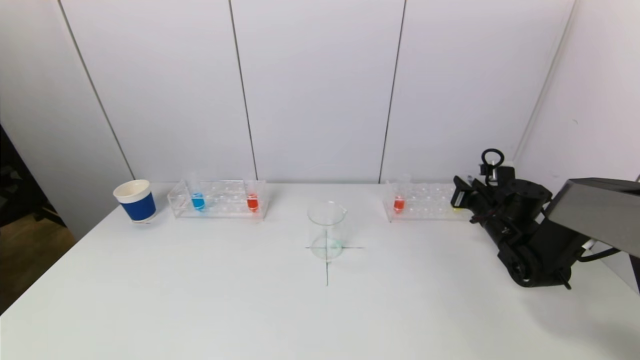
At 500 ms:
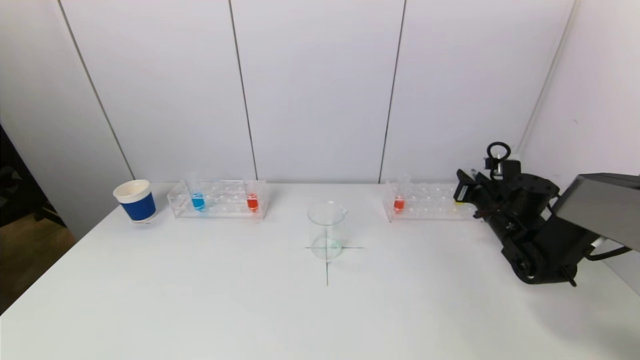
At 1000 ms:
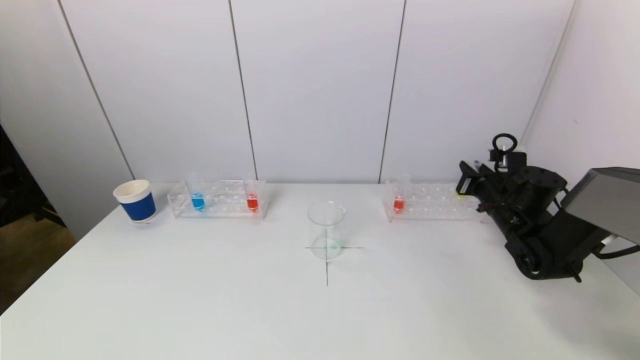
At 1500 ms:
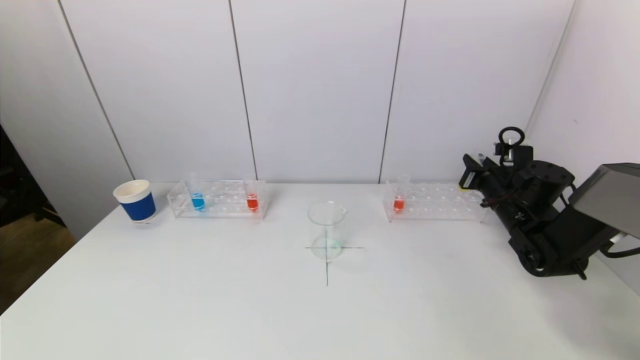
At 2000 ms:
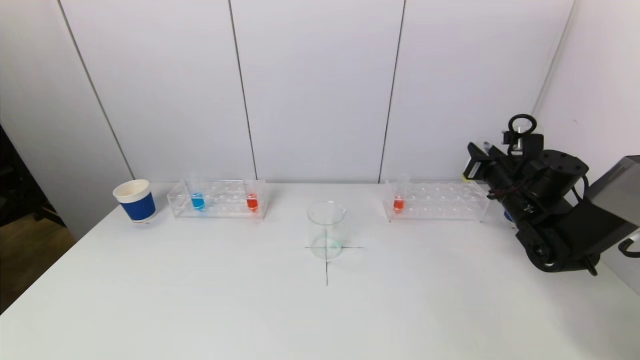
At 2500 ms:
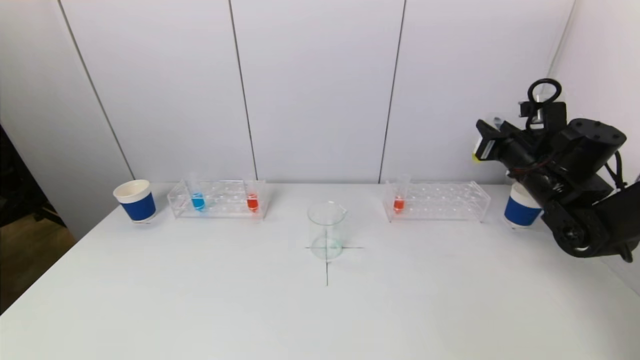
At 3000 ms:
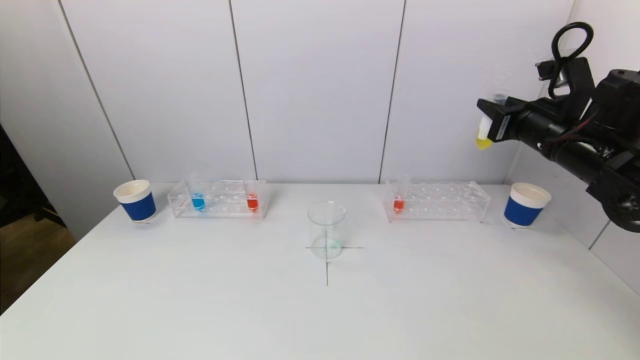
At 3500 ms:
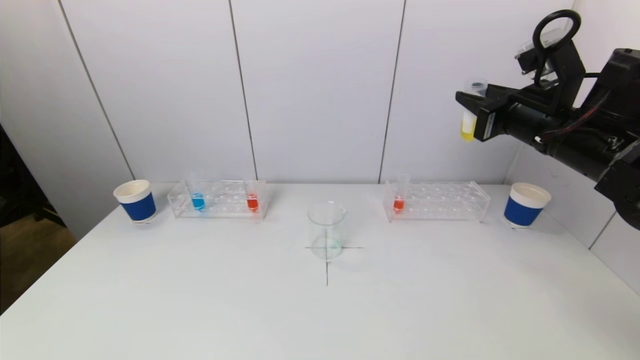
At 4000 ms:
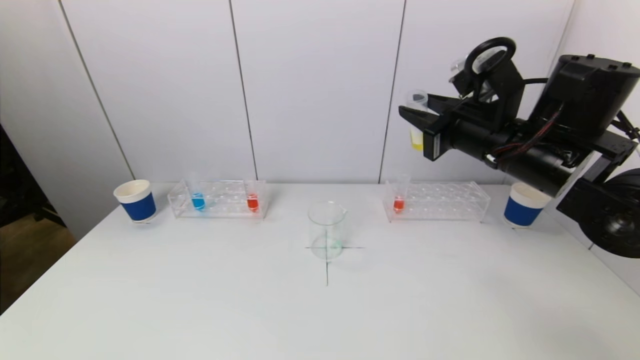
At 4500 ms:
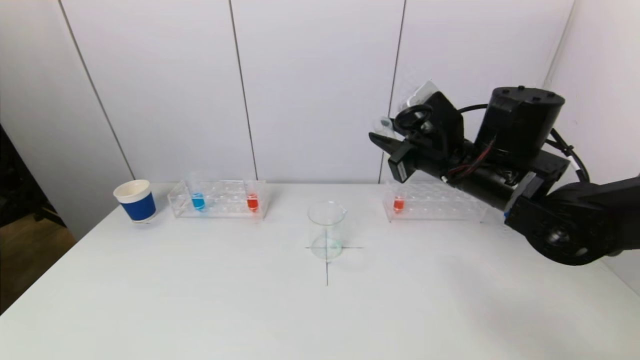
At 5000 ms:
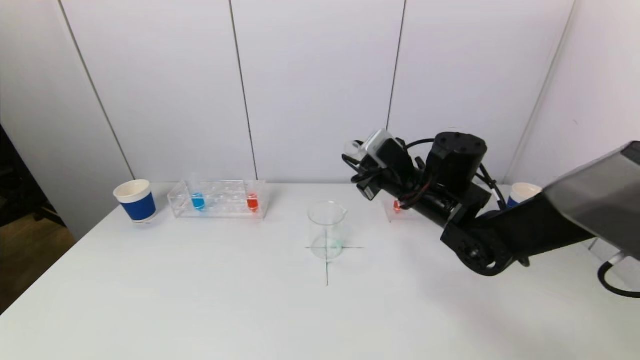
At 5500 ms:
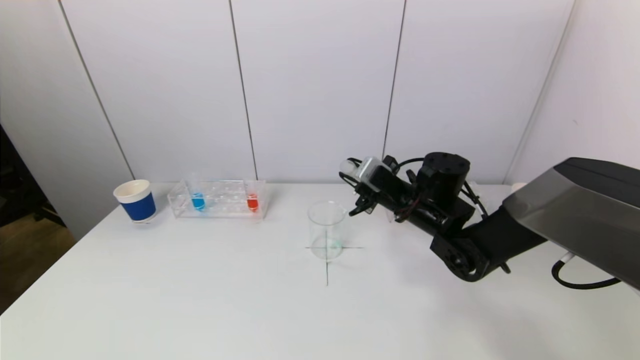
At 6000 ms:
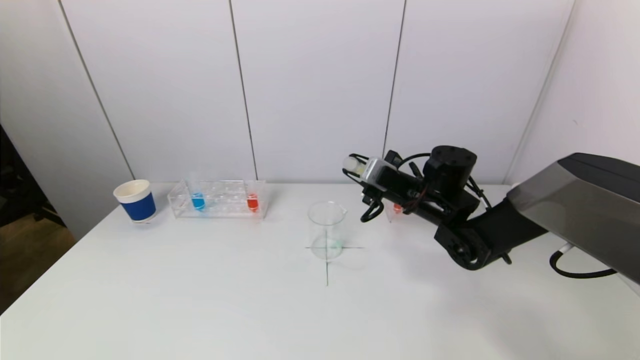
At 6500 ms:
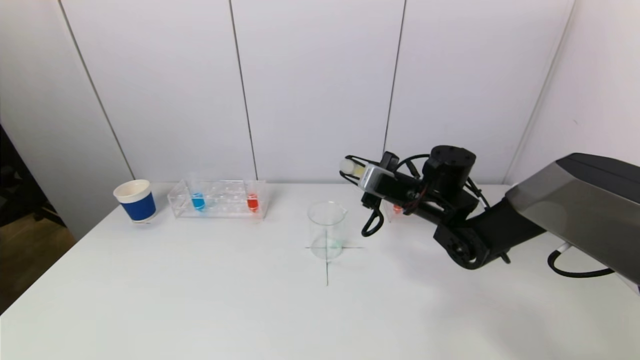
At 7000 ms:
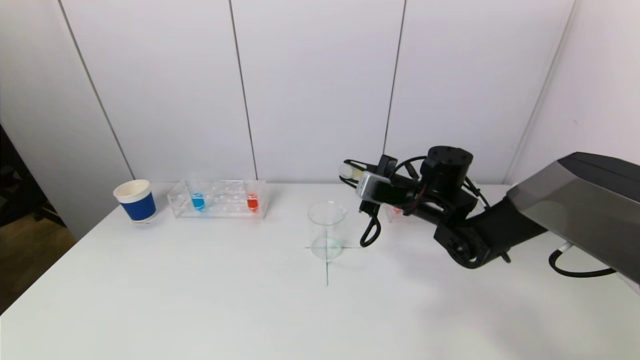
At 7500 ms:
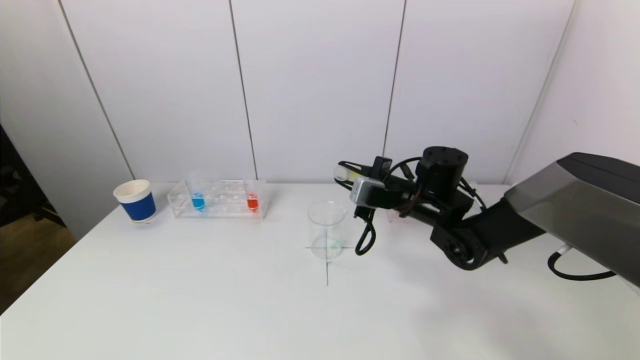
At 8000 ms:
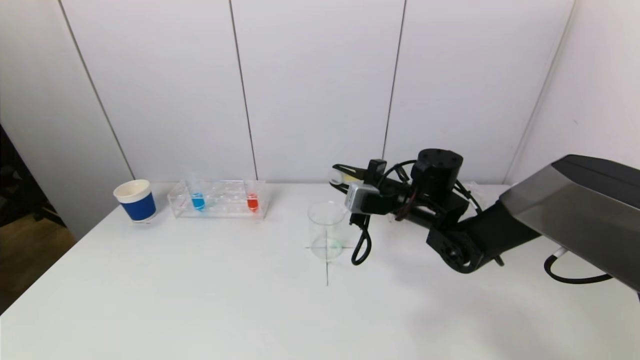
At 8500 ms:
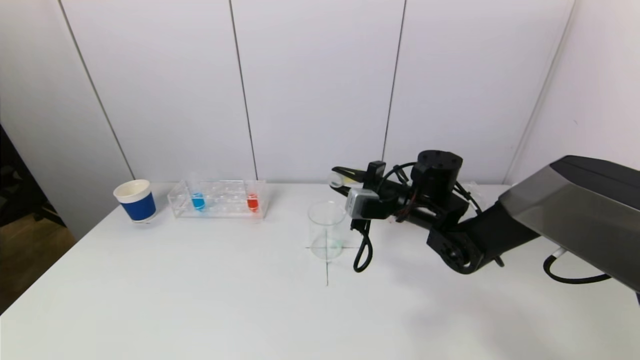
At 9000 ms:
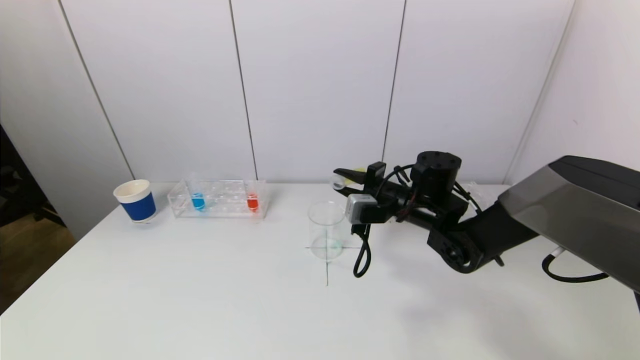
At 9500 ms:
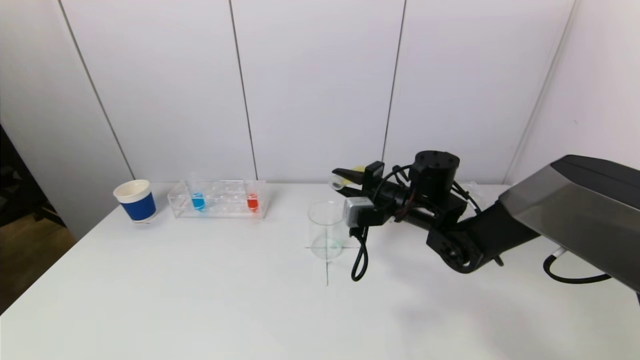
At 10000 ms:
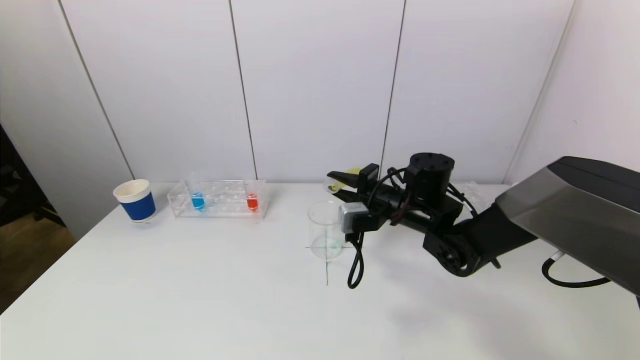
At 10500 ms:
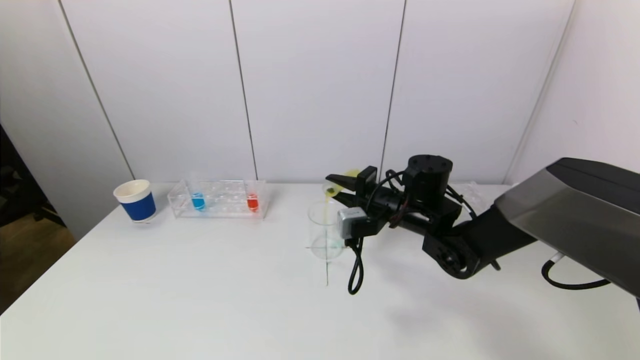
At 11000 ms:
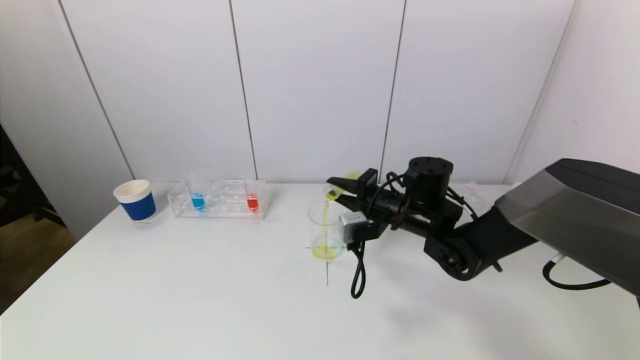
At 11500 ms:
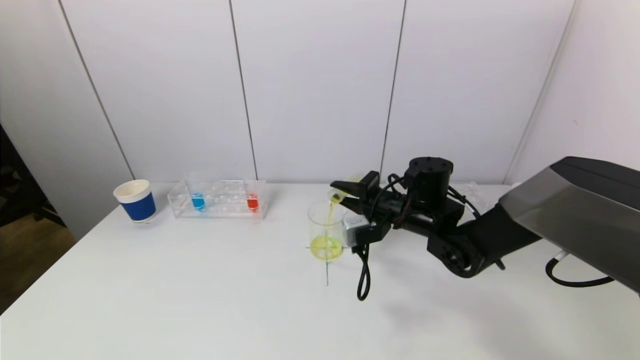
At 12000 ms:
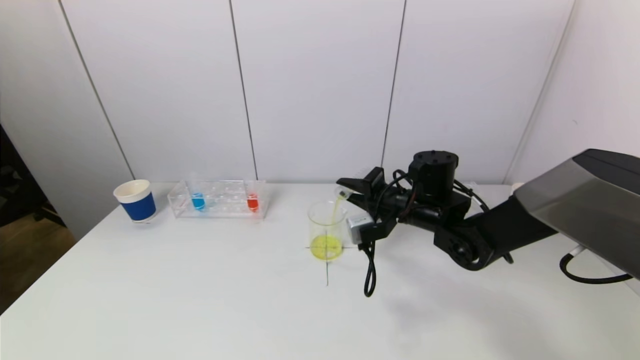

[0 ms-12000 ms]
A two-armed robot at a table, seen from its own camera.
Task of the whole recording: pick up a test tube with pigment on left test tube rack and a test tube with pigment on right test tube rack by grippers and pour them into the beaker.
0 ms to 2000 ms: The right gripper travels upward by some 10 cm.
2000 ms to 4000 ms: The right gripper heads upward, to the left and backward, covering some 20 cm.
4000 ms to 6000 ms: The right gripper is displaced downward and forward by approximately 15 cm.
6000 ms to 8000 ms: The grippers make only small movements.
8000 ms to 10000 ms: There are only small adjustments of the grippers.
10000 ms to 12000 ms: The grippers make only small movements.

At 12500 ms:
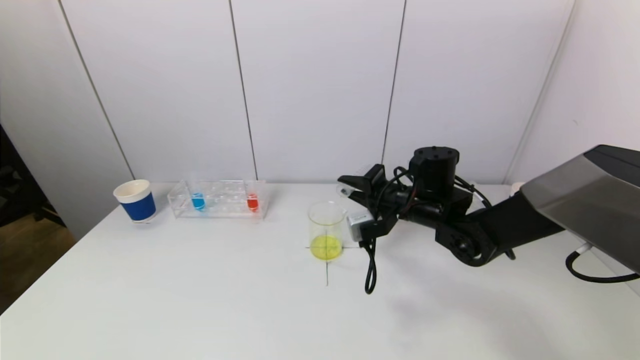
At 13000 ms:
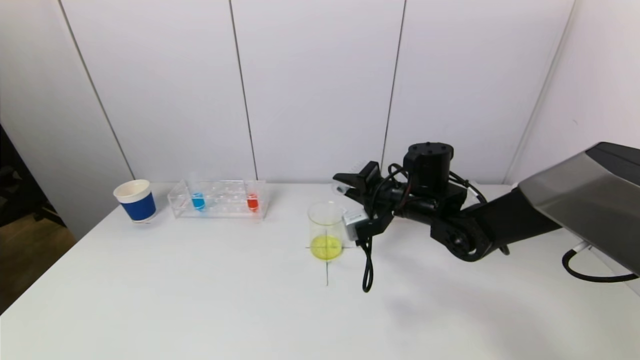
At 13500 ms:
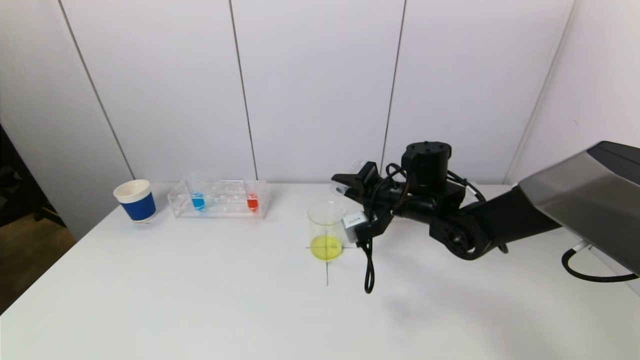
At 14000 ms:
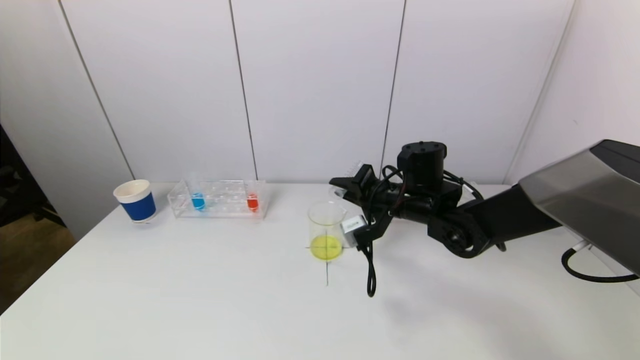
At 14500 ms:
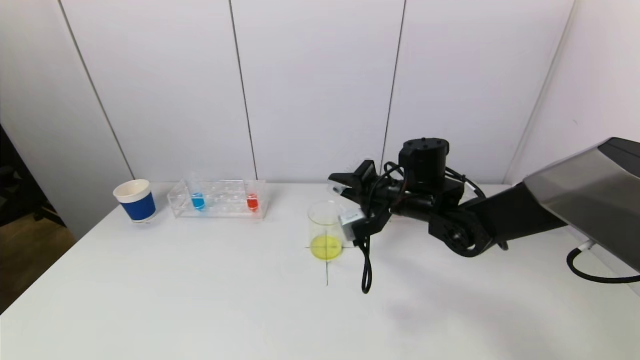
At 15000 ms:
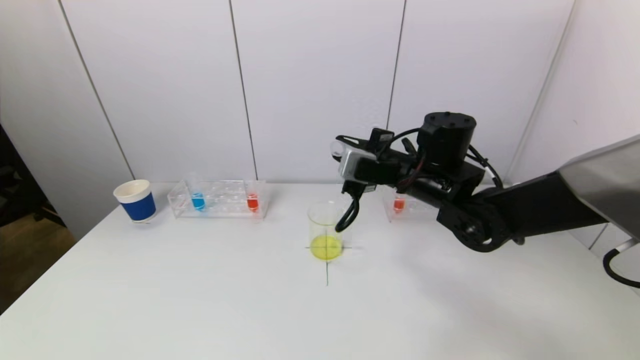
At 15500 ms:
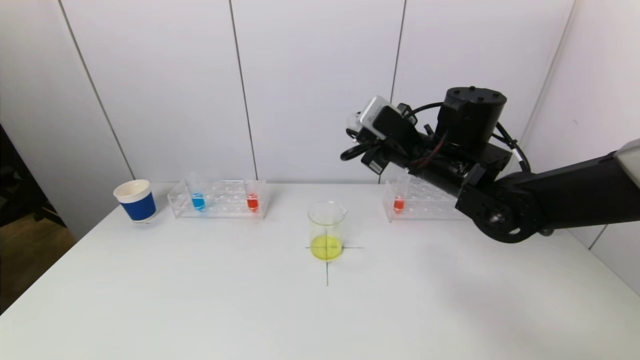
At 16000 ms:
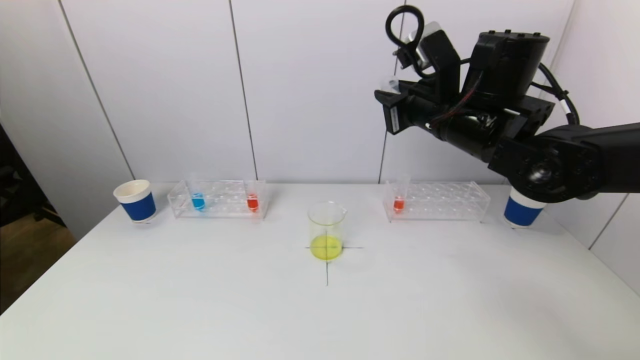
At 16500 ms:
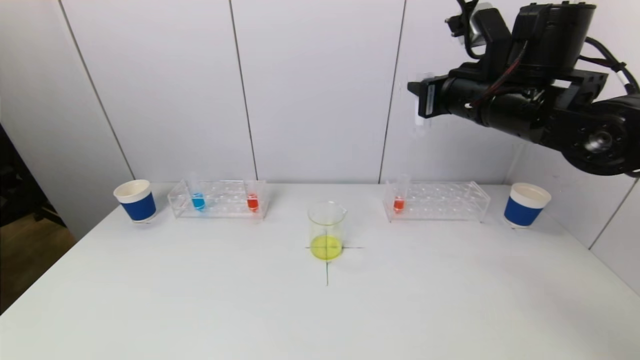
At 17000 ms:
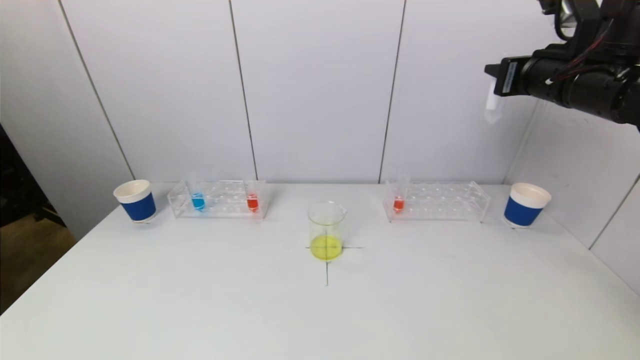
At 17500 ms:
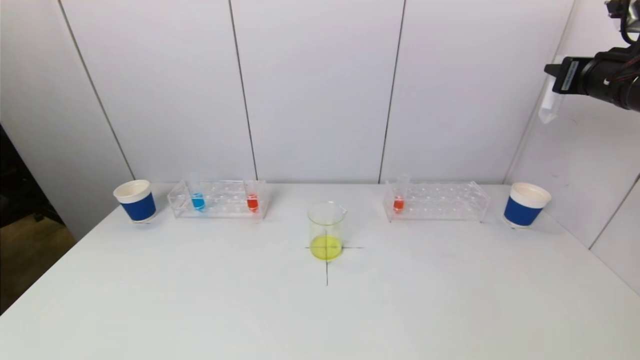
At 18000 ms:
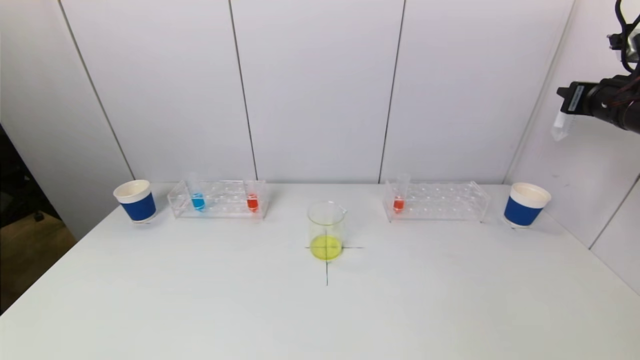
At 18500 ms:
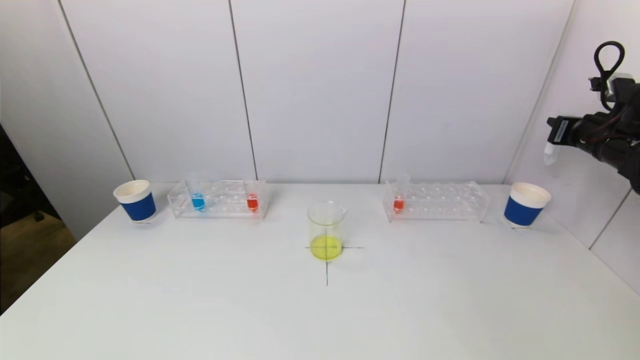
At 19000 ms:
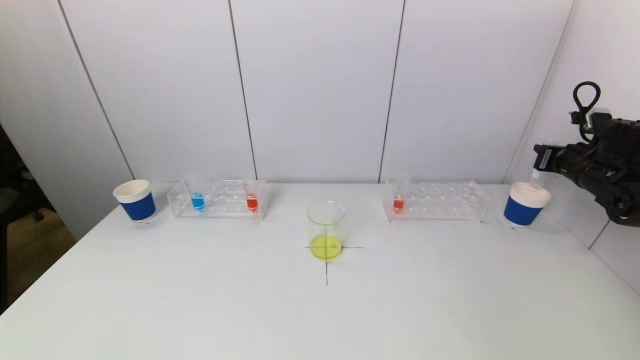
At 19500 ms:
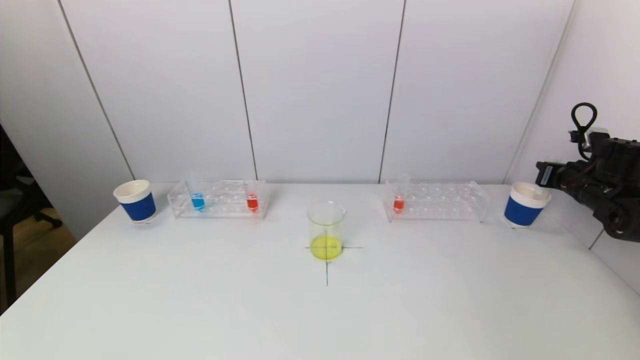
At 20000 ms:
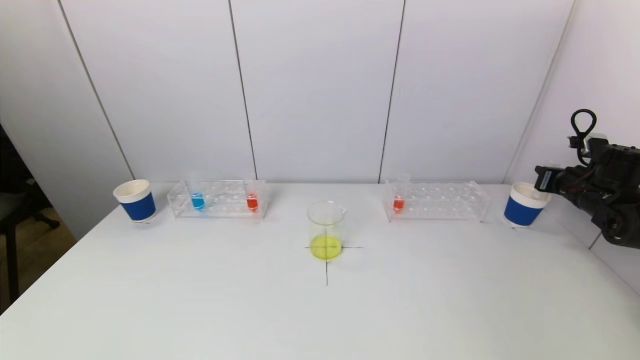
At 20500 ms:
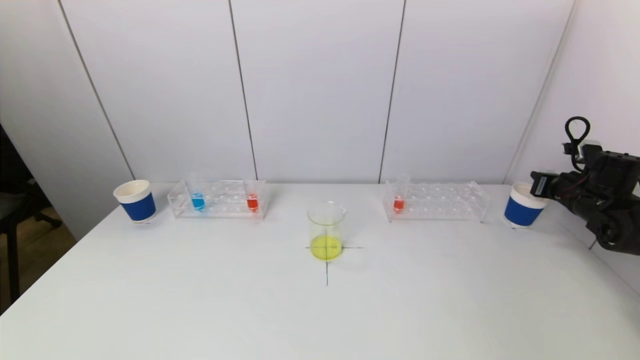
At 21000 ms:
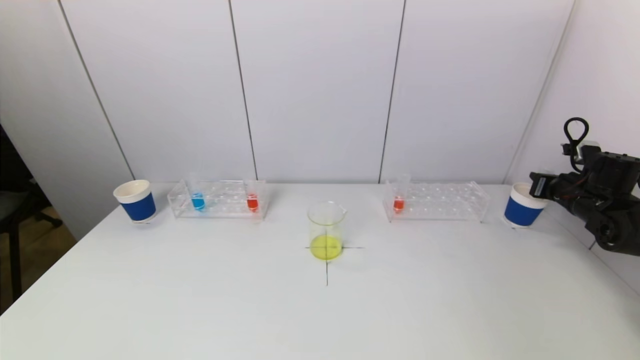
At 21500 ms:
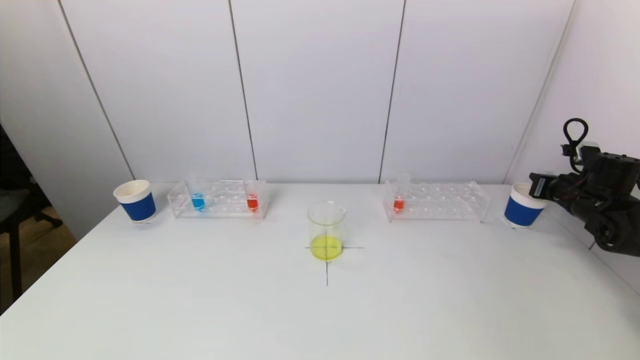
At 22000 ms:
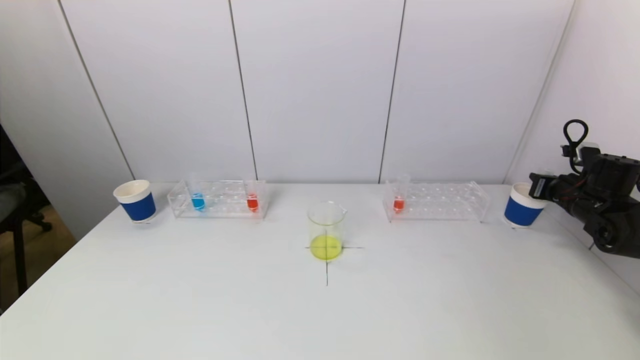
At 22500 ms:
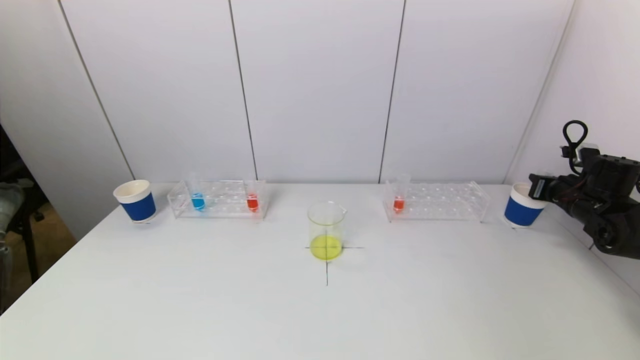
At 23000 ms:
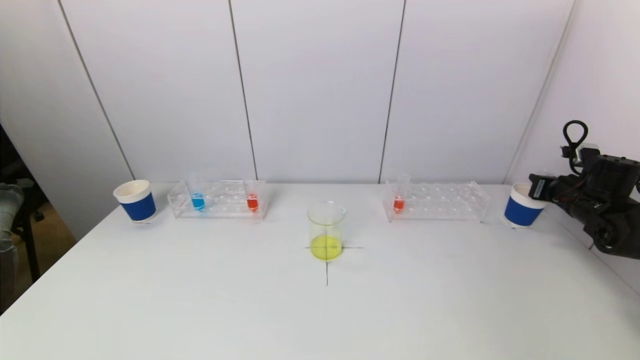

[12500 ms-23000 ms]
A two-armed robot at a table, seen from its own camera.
Task of the whole recording: pick up a test tube with pigment on left test tube rack and a test tube with pigment on right test tube rack by grippers and pour them into the beaker.
12500 ms to 14500 ms: The grippers move only a little.
14500 ms to 16500 ms: The right gripper goes approximately 20 cm upward and to the right.
16500 ms to 19000 ms: The right gripper travels to the right and downward by approximately 30 cm.
19000 ms to 21000 ms: The right gripper travels downward by some 5 cm.
21000 ms to 23000 ms: Both grippers stay put.
